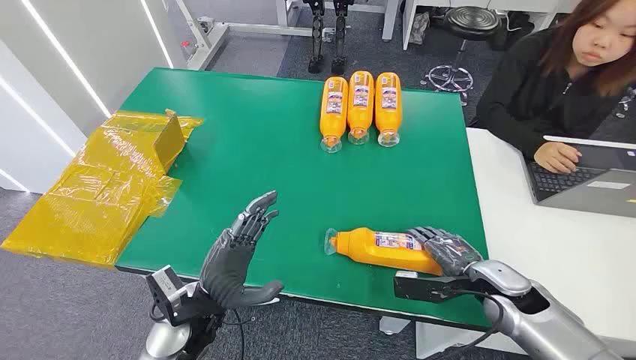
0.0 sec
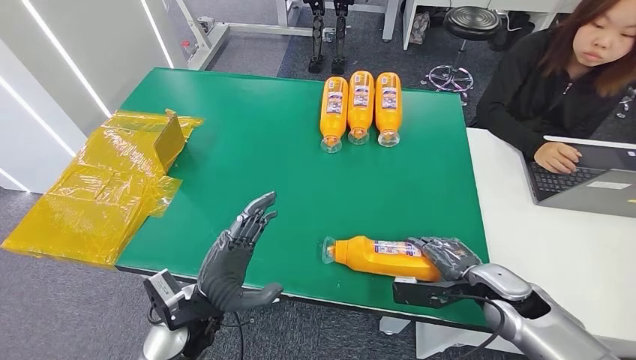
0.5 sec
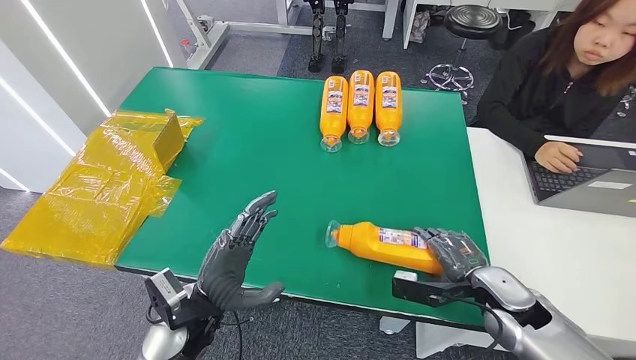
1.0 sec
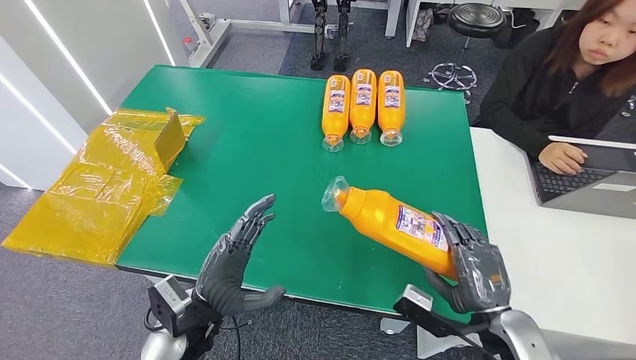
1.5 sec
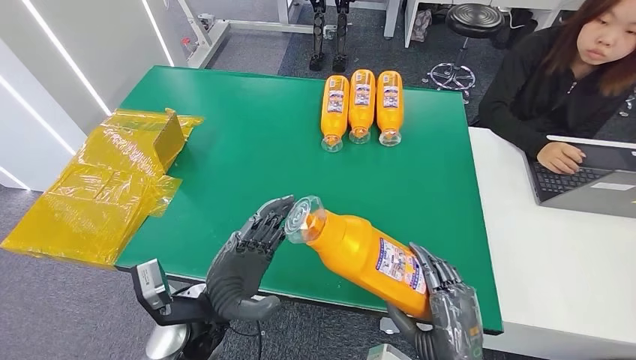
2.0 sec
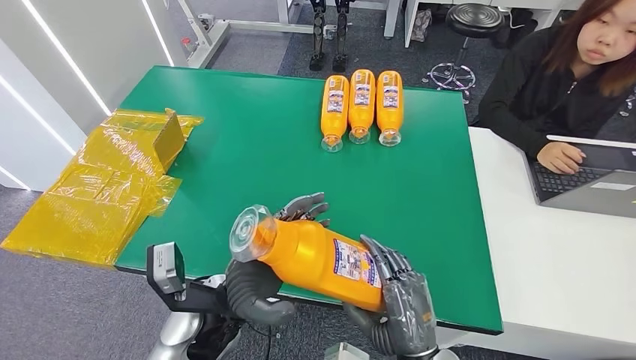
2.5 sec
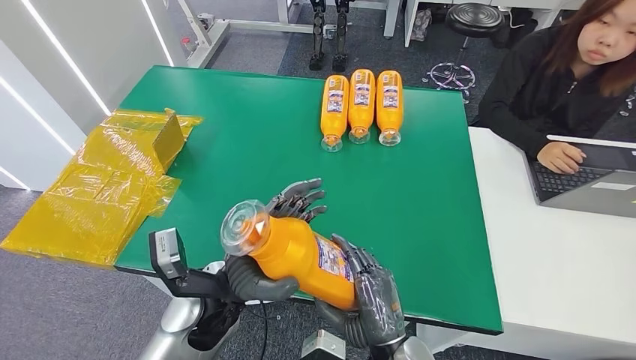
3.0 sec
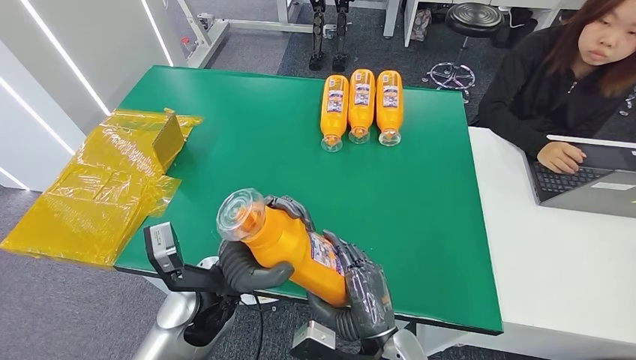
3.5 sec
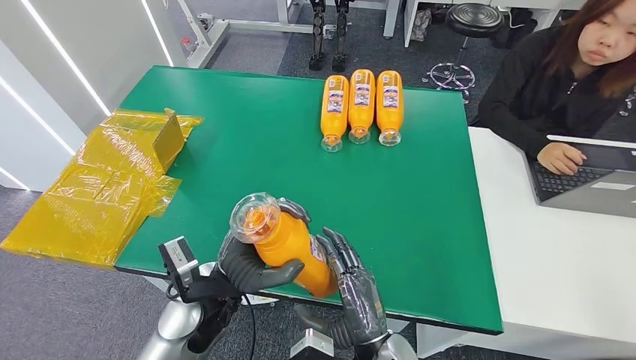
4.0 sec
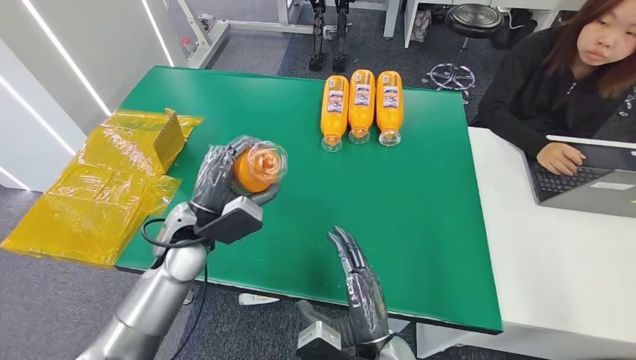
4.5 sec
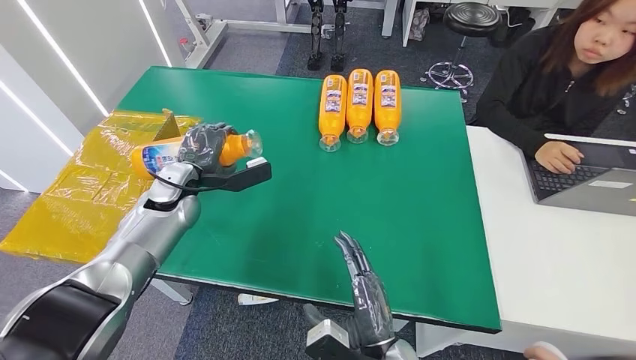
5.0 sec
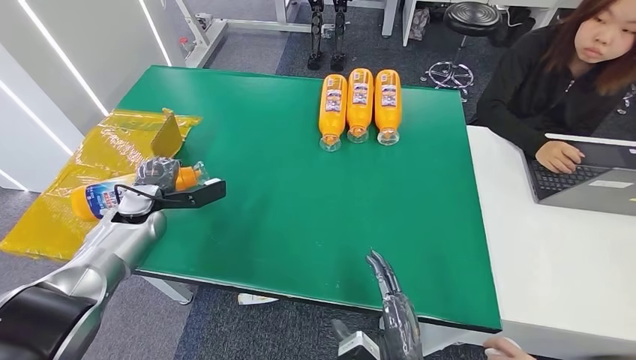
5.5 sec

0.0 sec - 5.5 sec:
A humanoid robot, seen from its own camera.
Step, 0.0 sec - 2.0 sec: Pick up the bottle from the table.
Step, 2.5 sec - 5.5 sec: Turn the bottle to the front side.
2.0 sec - 3.5 sec: The right hand is displaced to the left by approximately 10 cm.
